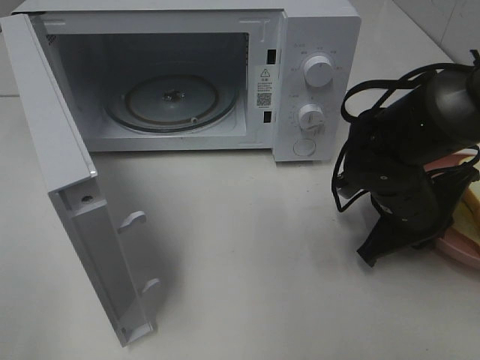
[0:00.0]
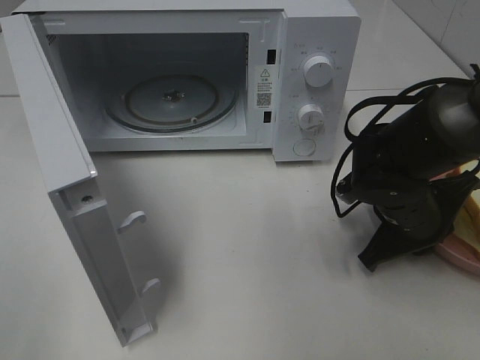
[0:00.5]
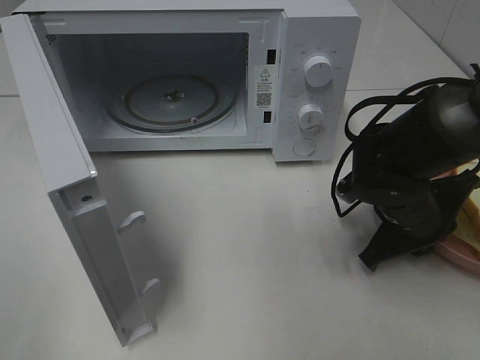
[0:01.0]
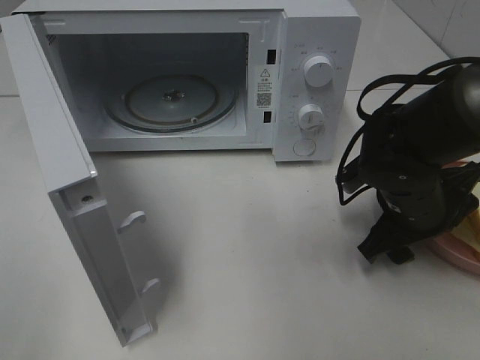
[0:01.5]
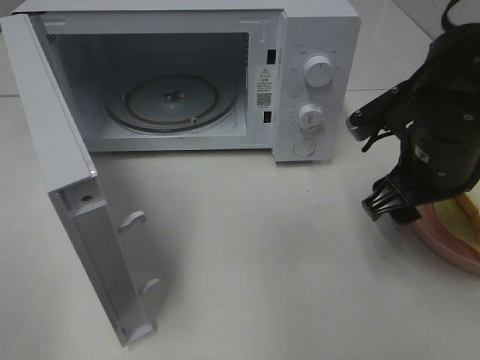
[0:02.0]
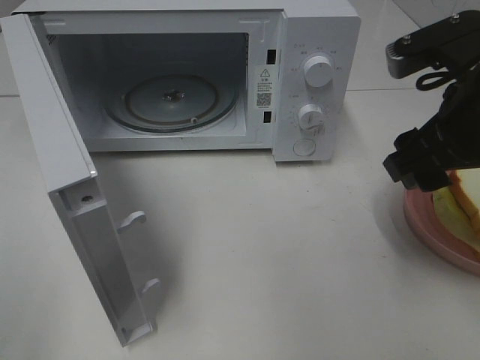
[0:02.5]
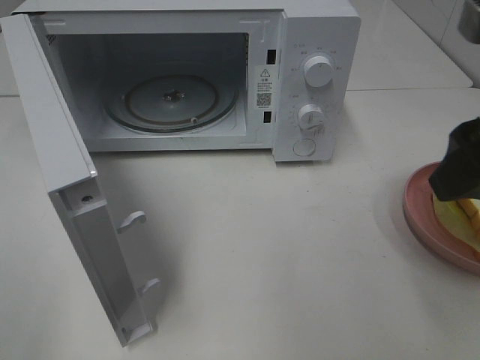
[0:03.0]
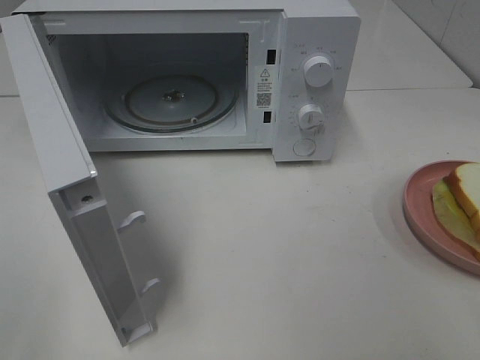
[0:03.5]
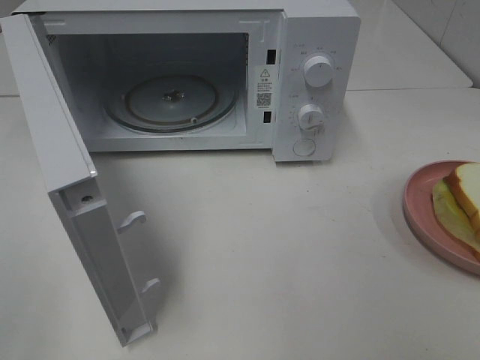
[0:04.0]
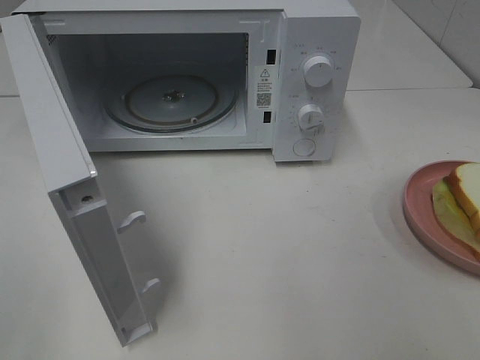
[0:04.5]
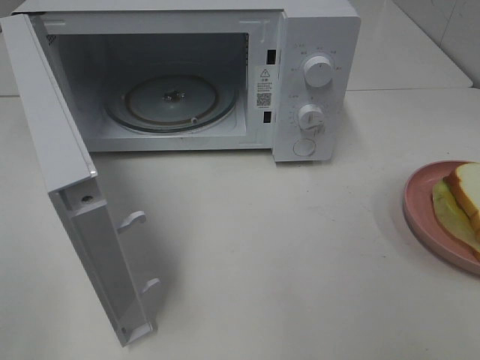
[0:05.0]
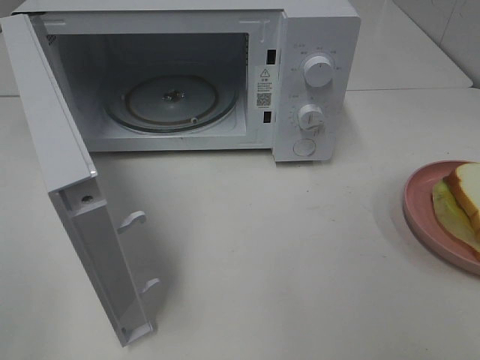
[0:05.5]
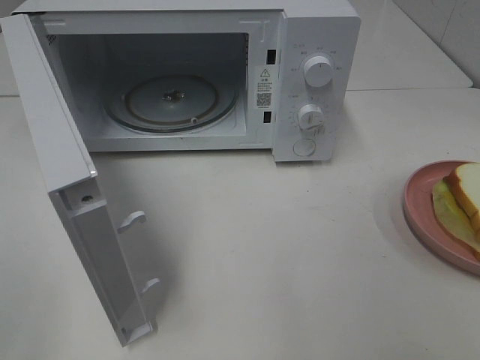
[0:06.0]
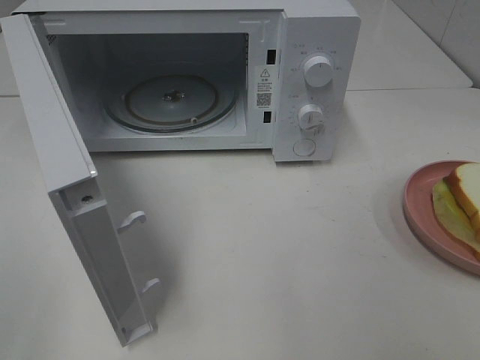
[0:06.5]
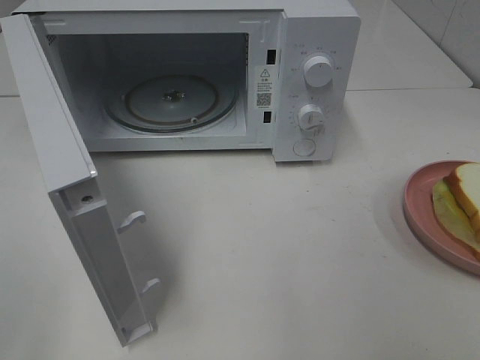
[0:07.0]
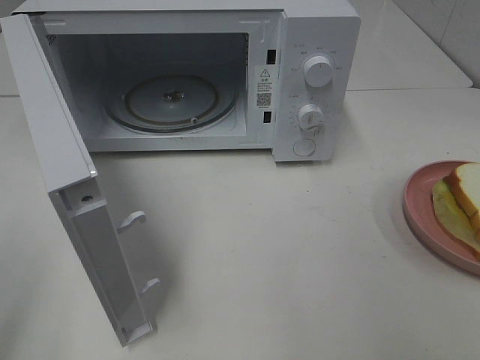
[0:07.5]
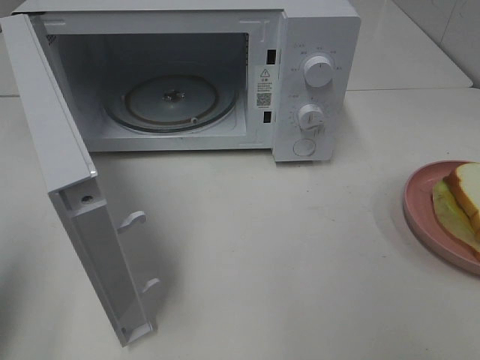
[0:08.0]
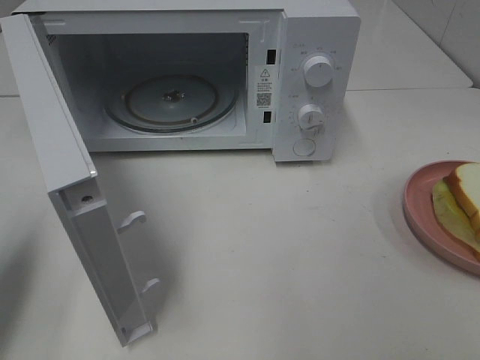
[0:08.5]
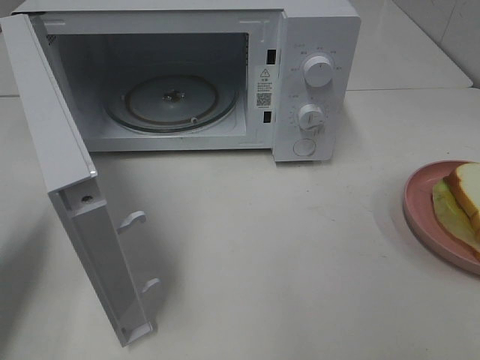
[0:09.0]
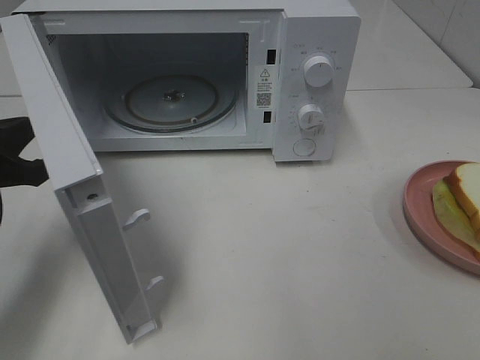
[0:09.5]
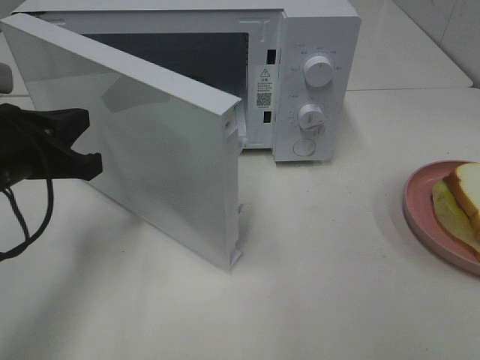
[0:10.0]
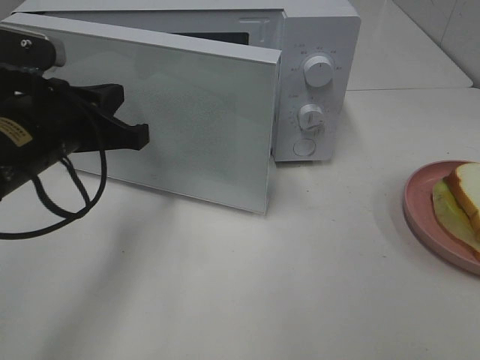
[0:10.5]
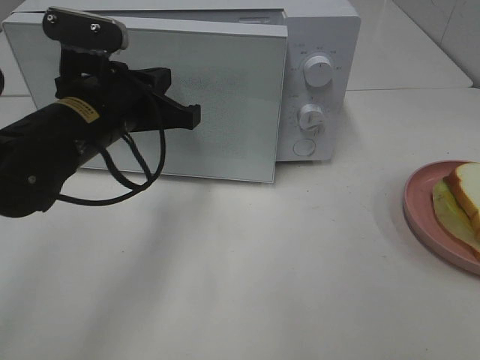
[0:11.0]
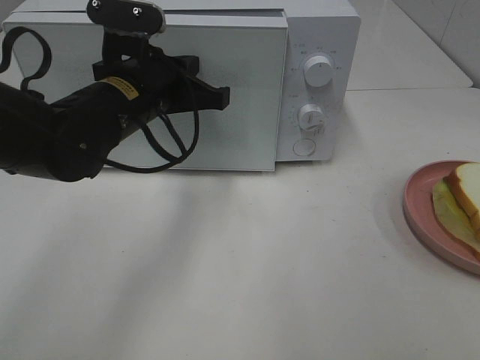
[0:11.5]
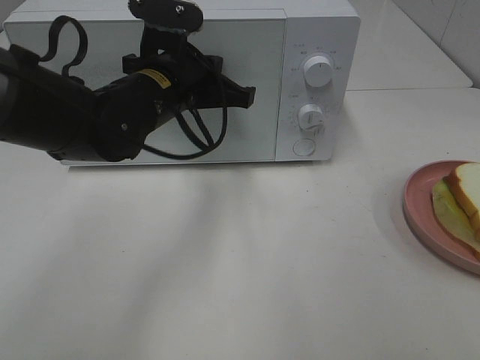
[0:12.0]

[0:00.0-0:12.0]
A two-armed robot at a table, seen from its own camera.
Task of the whole recording: Heat Sandwich.
Step, 0:00.0 to 0:02.0: Right hand: place the plate on the table.
0:00.0 to 0:02.0: The right gripper heads upward, covering approximately 10 cm, and opens its fingers.
0:02.0 to 0:04.0: The right gripper heads backward, to the right and upward, covering about 25 cm.
0:06.0 to 0:08.0: The left gripper goes about 10 cm forward, and closes.
0:08.0 to 0:10.0: The left gripper heads forward, to the right and downward, covering roughly 20 cm.
0:10.0 to 0:12.0: The left gripper shifts about 20 cm to the right and forward.

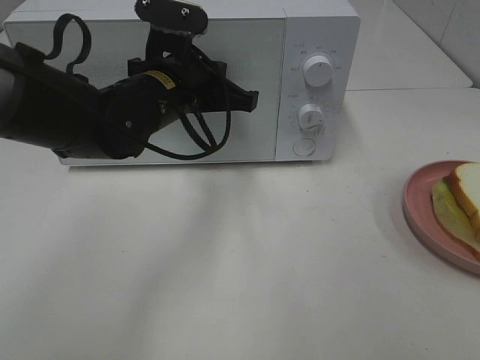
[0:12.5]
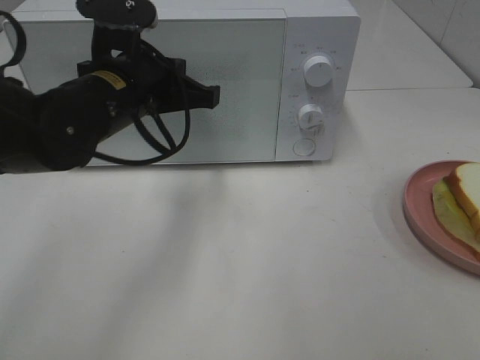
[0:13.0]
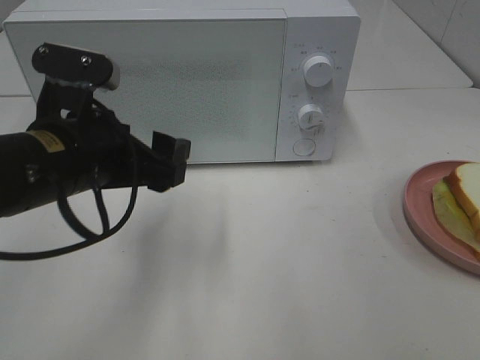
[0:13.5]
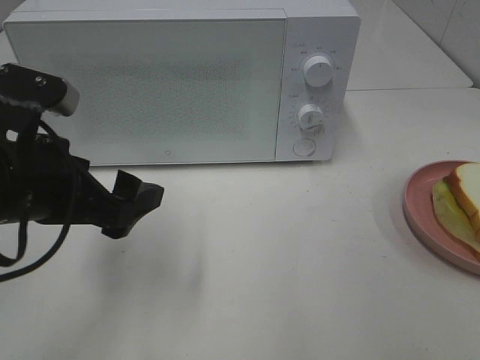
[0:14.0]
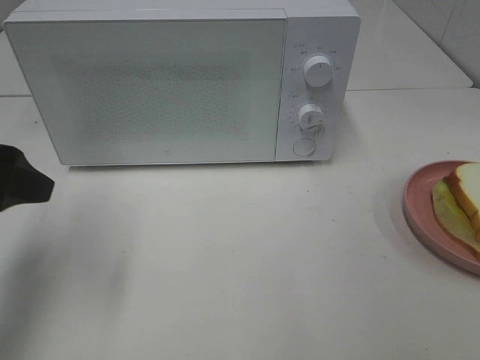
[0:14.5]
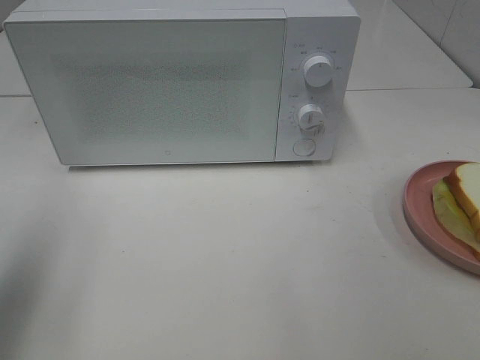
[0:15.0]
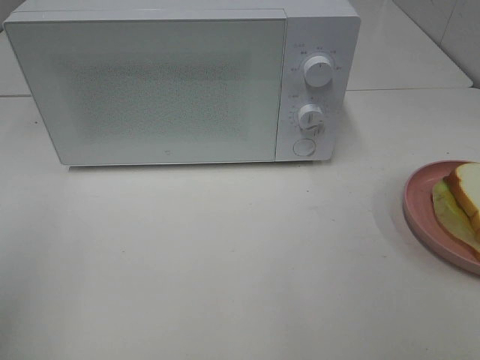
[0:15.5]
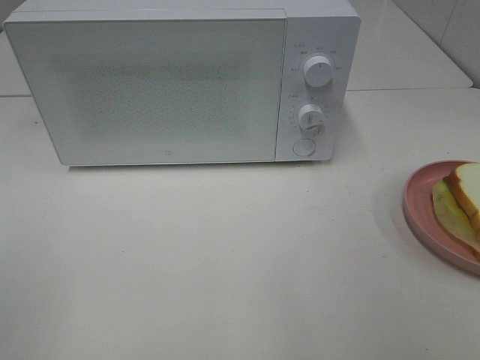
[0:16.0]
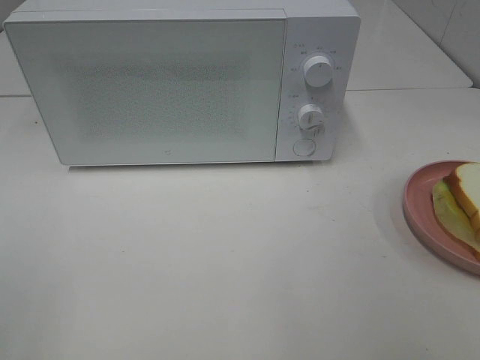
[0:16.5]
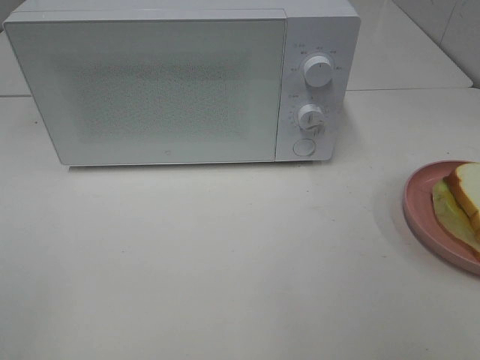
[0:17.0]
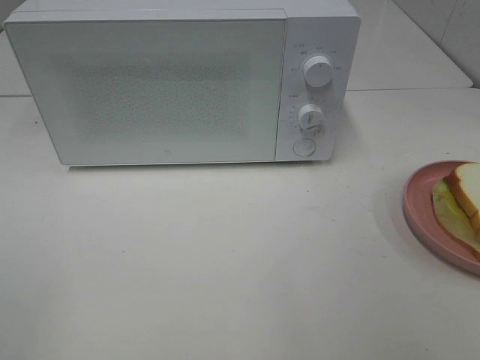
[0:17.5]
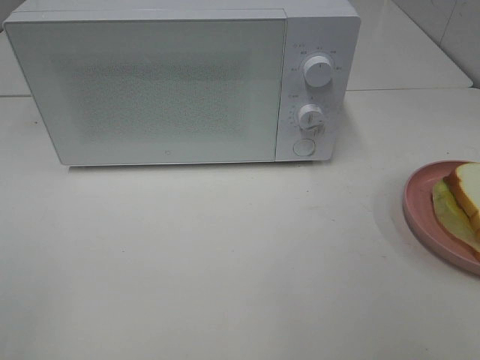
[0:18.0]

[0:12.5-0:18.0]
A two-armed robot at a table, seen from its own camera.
Task of the whole recording: Heat Sandwich.
0:12.5 to 0:14.5: The left gripper moves to the left and backward, some 25 cm, and opens its fingers.
0:14.5 to 0:16.0: The left gripper heads backward, covering roughly 20 cm.

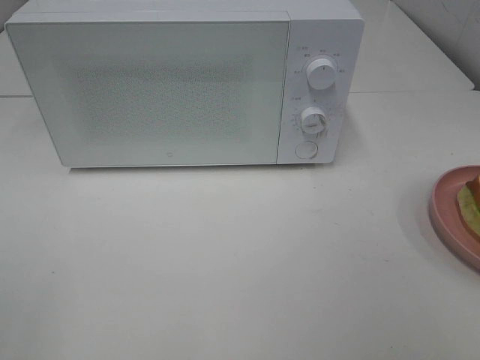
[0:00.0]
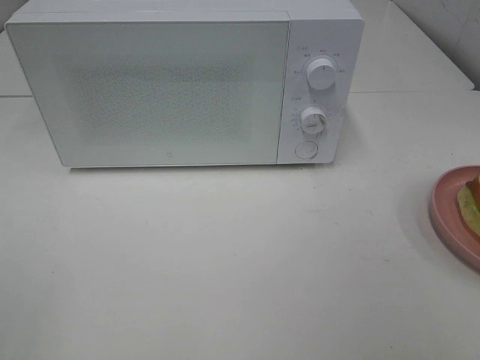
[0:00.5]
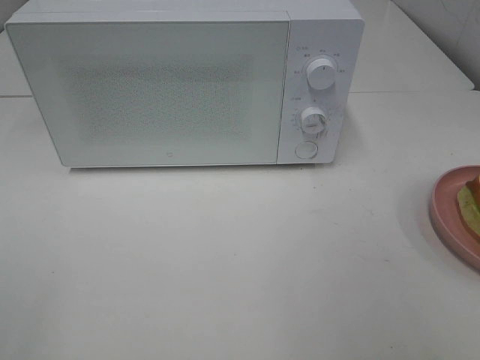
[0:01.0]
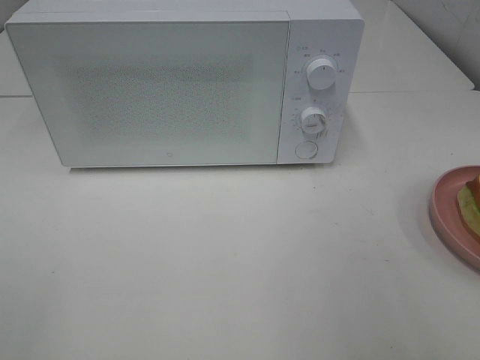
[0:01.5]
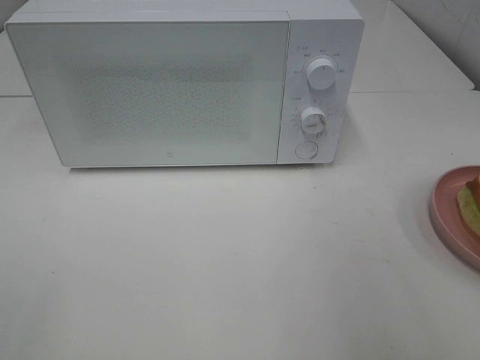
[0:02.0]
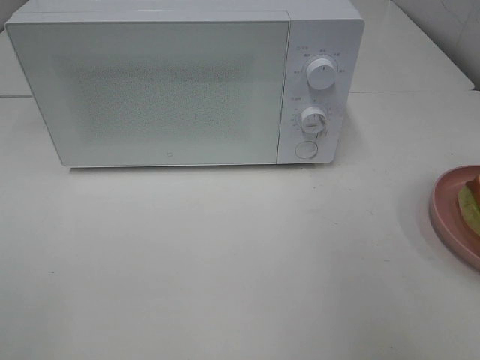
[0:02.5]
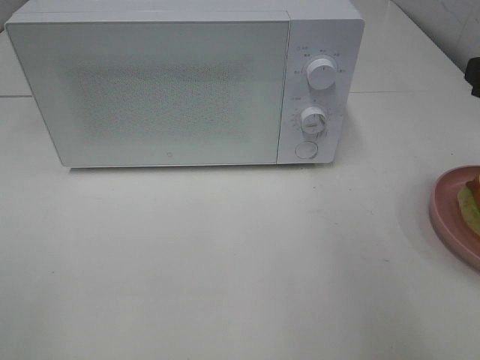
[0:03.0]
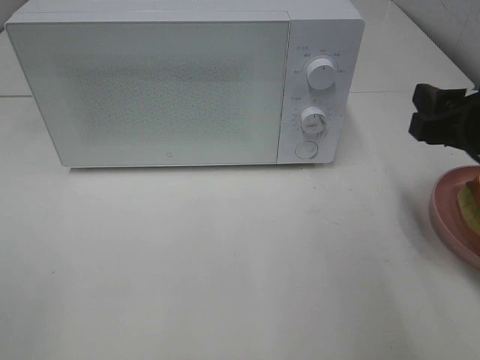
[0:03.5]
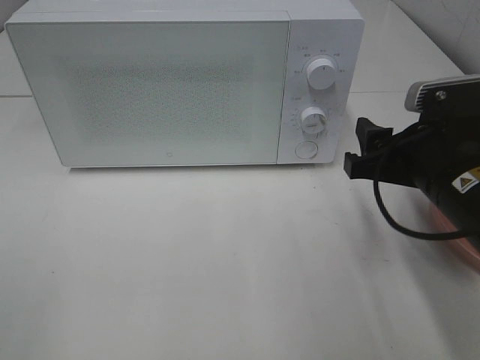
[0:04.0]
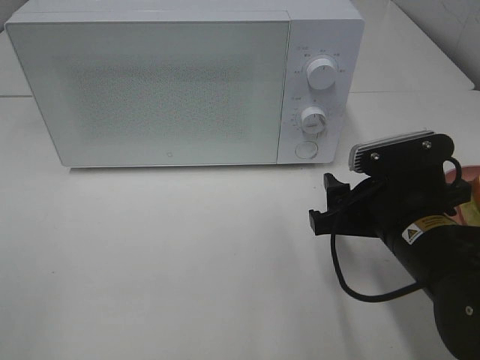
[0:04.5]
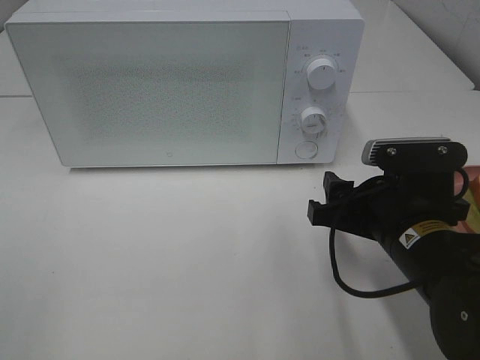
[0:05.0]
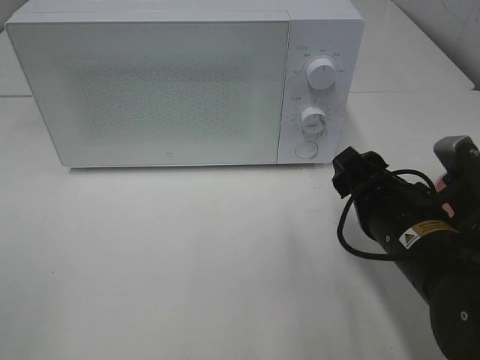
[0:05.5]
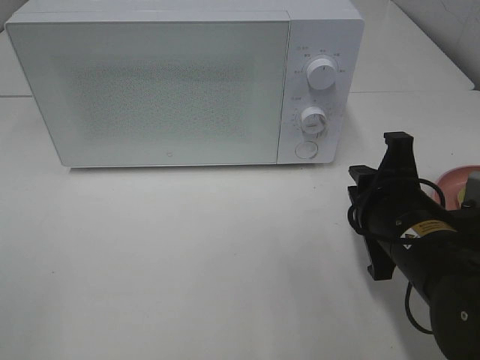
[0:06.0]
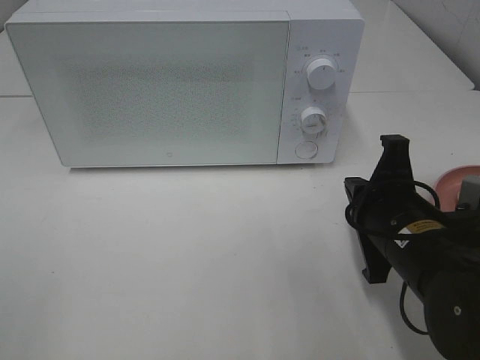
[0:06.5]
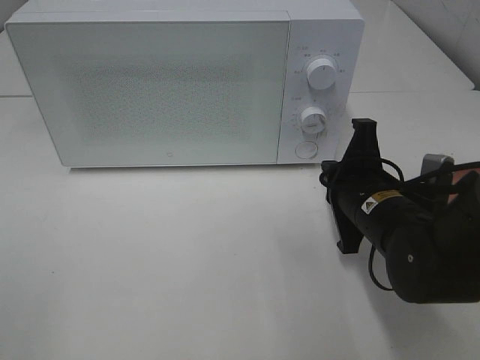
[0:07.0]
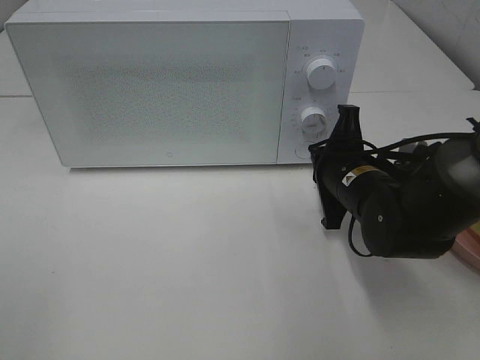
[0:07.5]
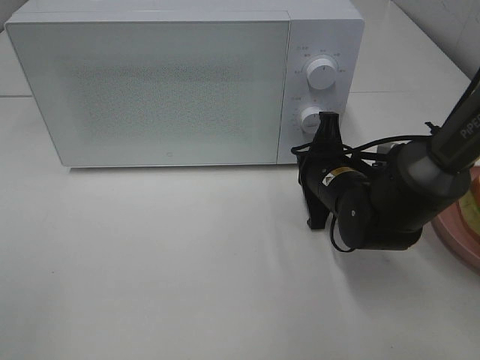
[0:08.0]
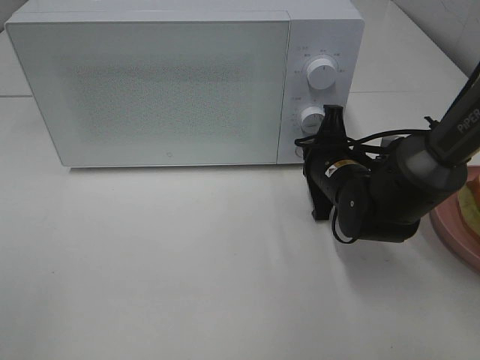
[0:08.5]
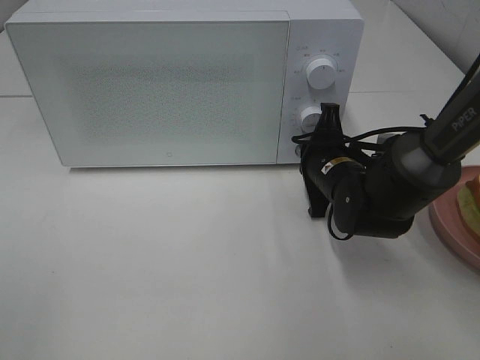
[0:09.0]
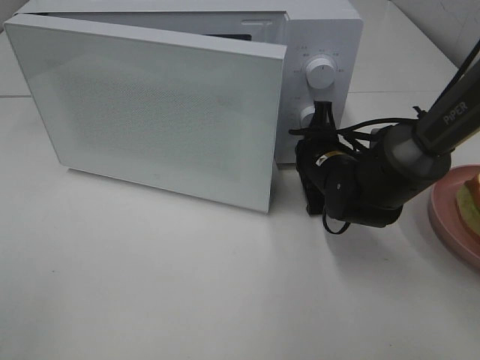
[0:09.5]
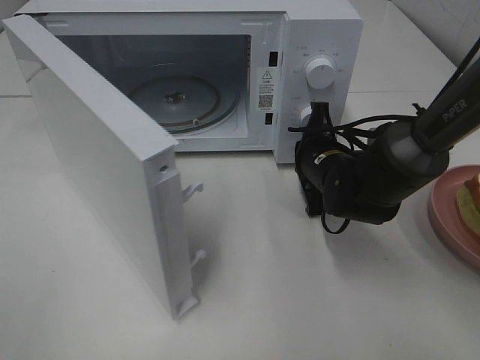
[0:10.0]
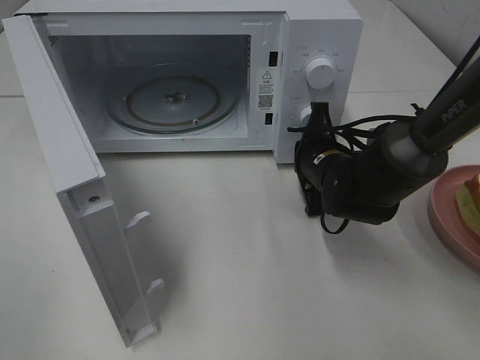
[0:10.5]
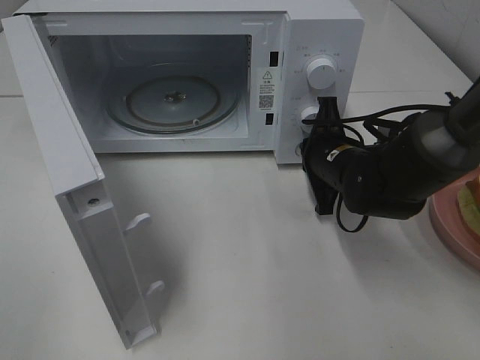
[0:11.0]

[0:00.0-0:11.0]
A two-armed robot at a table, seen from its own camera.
Task of the whole recording: Heat Sandwich.
0:02.0 to 0:03.5: The right gripper moves forward and downward, some 15 cm.
0:03.5 to 0:05.5: The right gripper moves downward and to the left, about 10 cm.
0:05.5 to 0:07.5: The right gripper travels forward by roughly 10 cm, and closes its fingers.
0:07.5 to 0:09.0: The grippers stay close to where they were, moving slightly.
